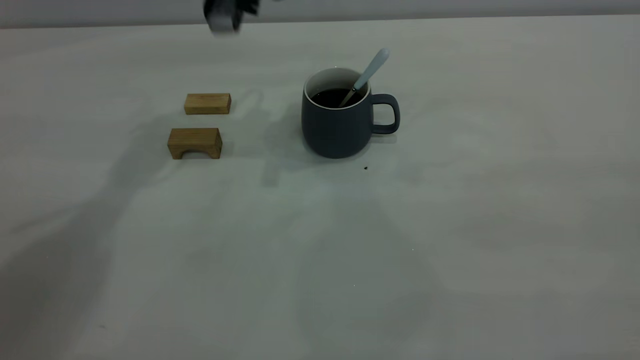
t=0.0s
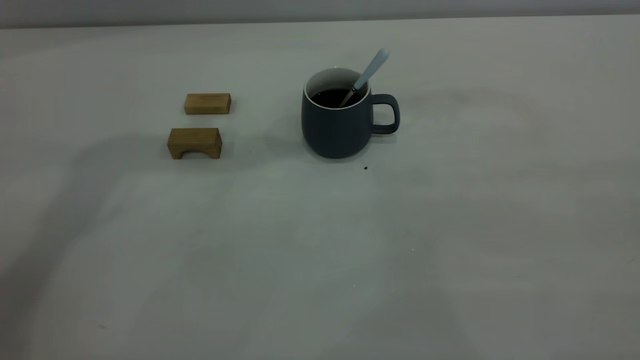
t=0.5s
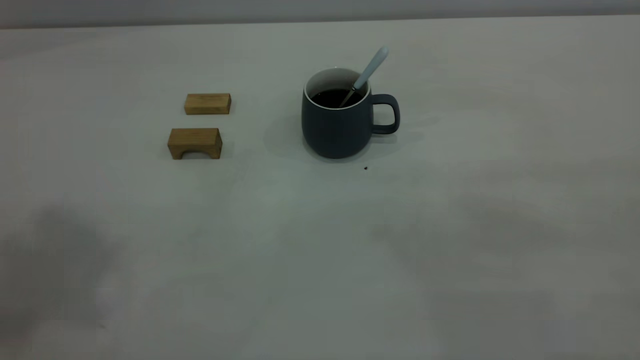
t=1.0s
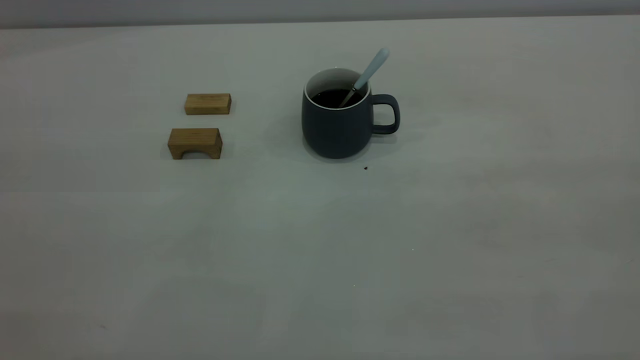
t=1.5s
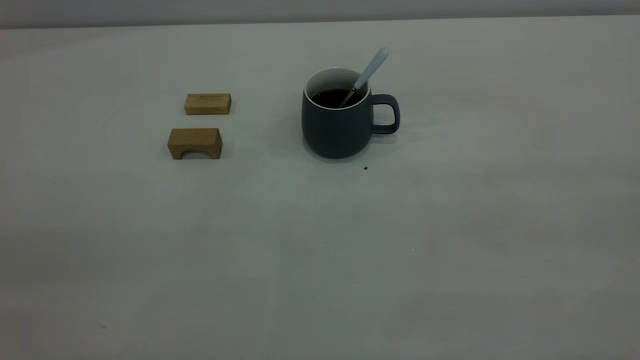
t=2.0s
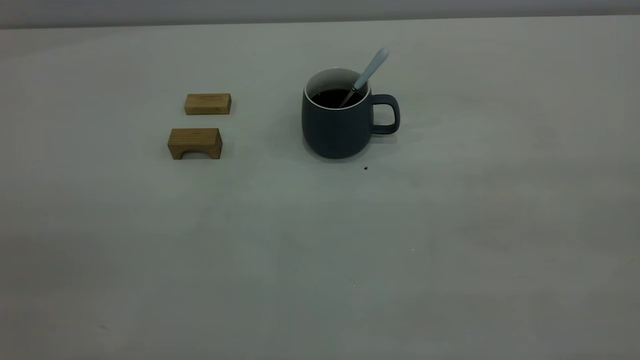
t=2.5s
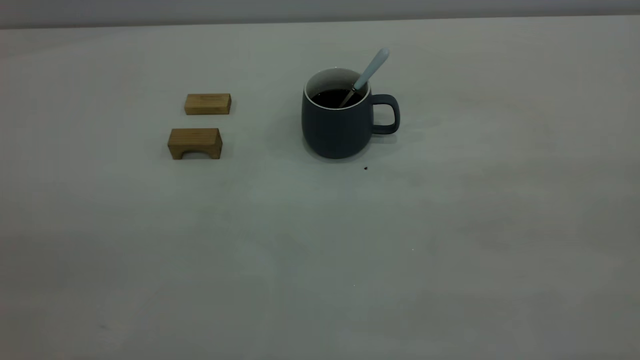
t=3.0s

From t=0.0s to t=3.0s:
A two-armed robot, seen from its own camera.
From t=0.0s to t=1.5s: The left gripper heads backward, upward and to the left, covering approximately 50 cm.
